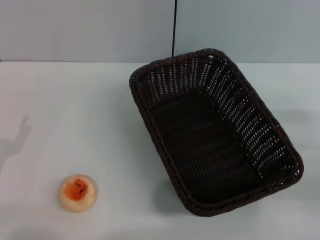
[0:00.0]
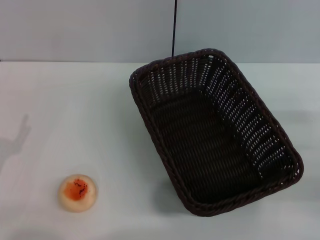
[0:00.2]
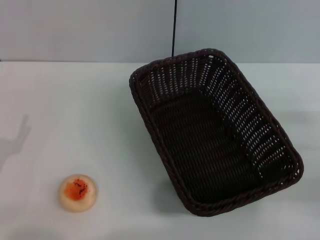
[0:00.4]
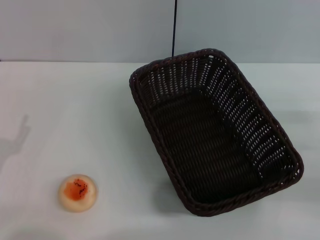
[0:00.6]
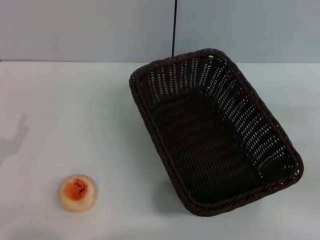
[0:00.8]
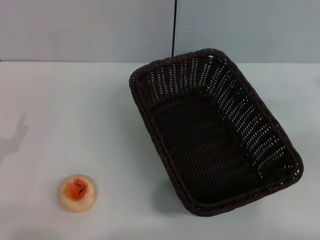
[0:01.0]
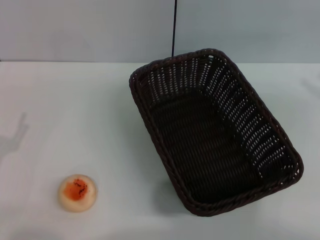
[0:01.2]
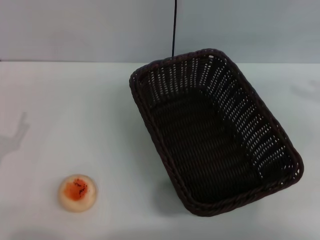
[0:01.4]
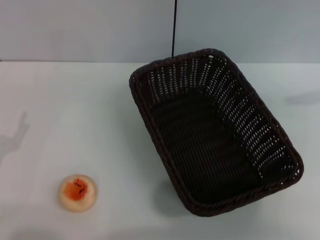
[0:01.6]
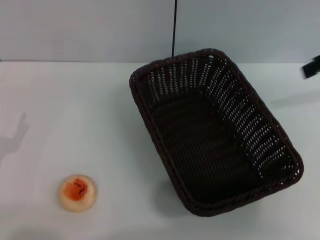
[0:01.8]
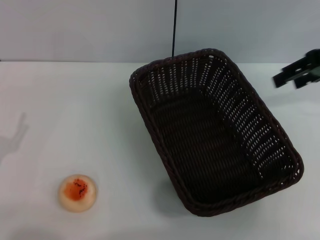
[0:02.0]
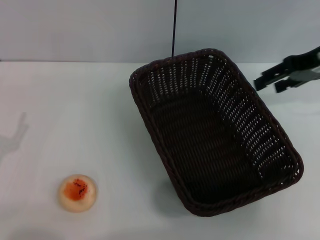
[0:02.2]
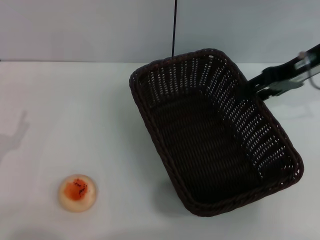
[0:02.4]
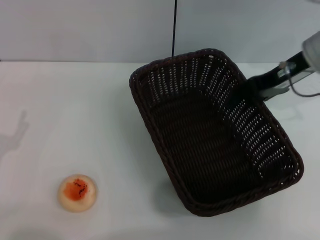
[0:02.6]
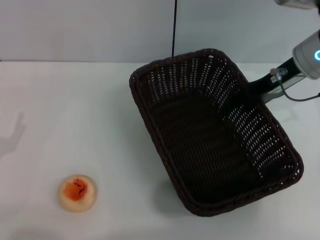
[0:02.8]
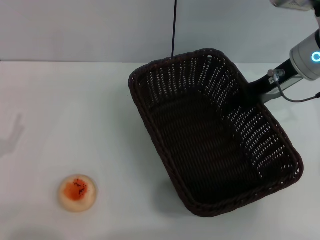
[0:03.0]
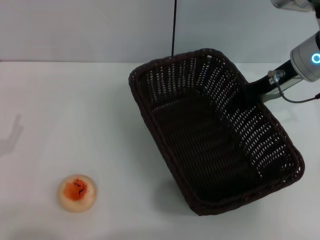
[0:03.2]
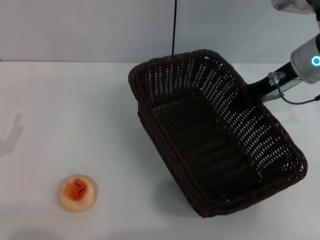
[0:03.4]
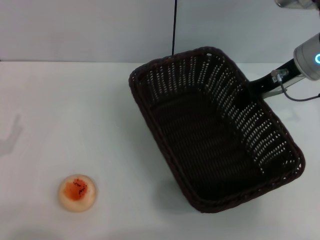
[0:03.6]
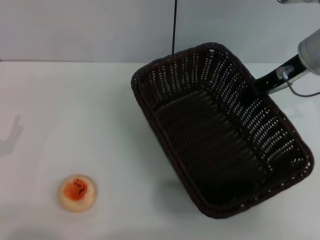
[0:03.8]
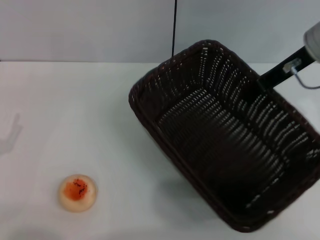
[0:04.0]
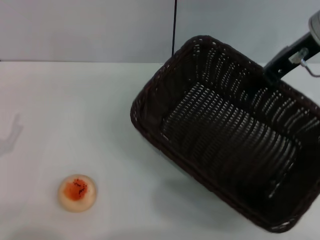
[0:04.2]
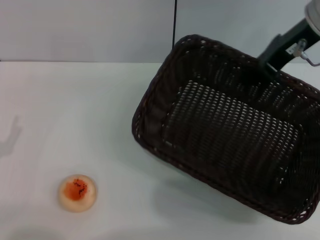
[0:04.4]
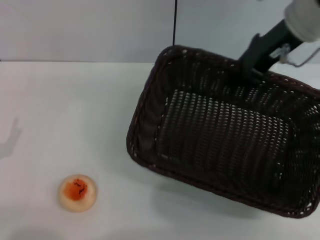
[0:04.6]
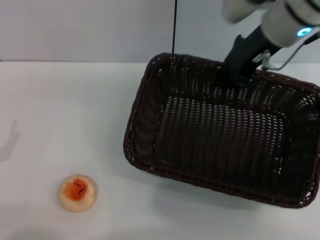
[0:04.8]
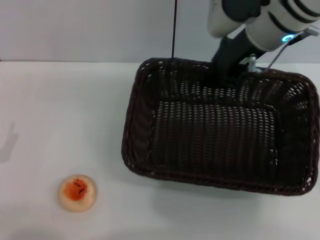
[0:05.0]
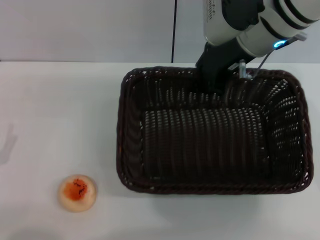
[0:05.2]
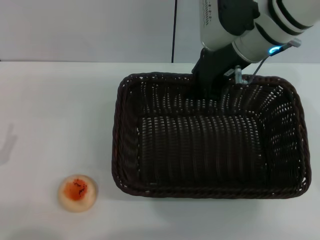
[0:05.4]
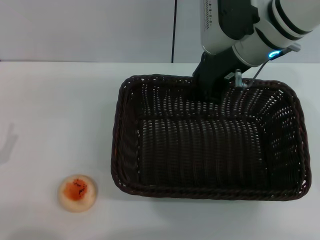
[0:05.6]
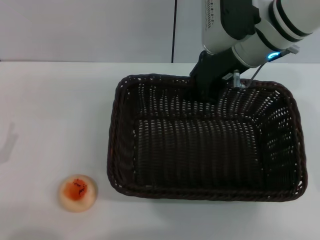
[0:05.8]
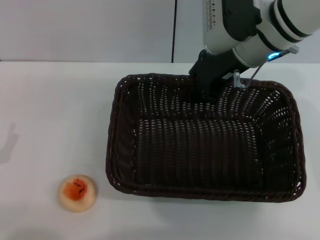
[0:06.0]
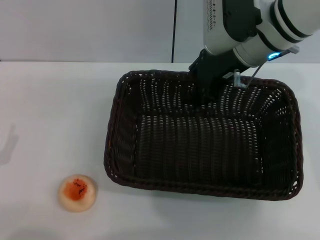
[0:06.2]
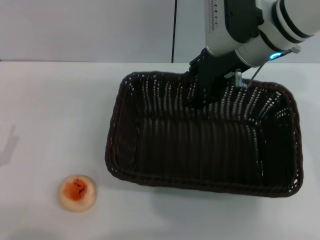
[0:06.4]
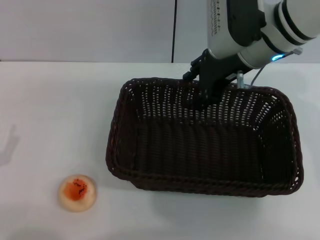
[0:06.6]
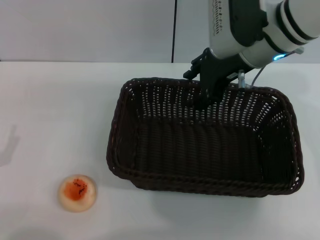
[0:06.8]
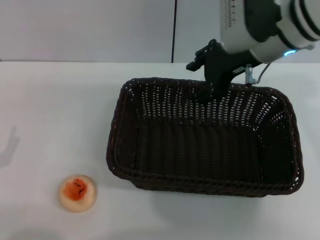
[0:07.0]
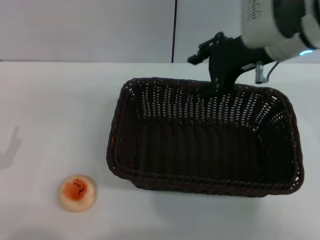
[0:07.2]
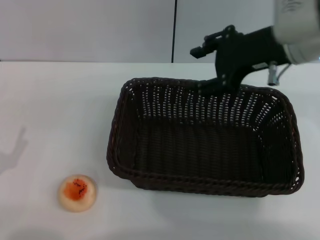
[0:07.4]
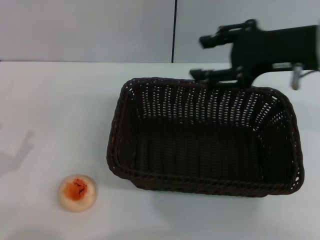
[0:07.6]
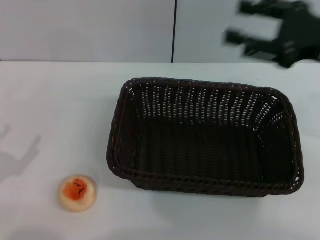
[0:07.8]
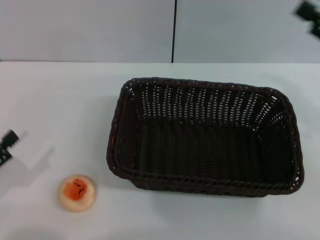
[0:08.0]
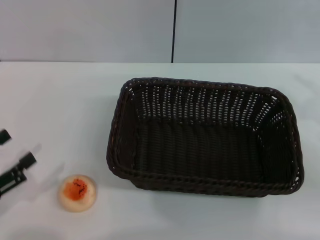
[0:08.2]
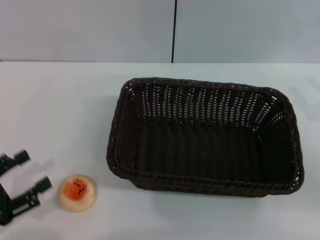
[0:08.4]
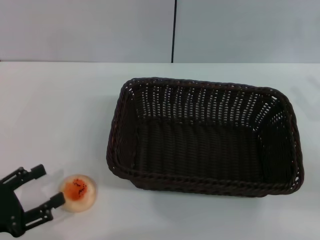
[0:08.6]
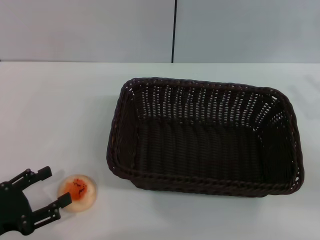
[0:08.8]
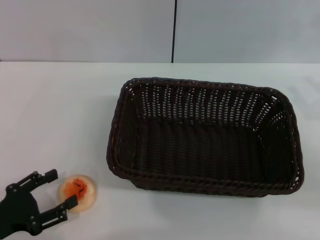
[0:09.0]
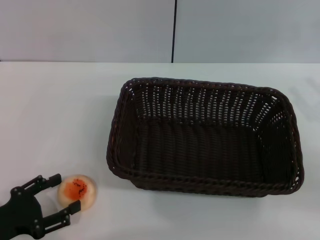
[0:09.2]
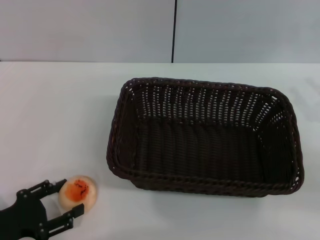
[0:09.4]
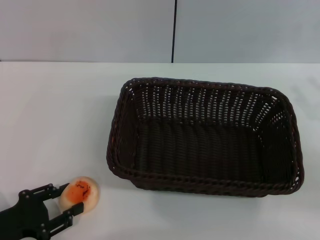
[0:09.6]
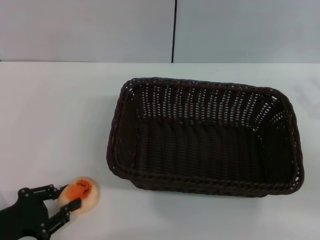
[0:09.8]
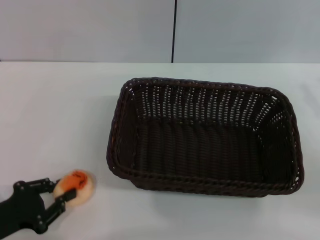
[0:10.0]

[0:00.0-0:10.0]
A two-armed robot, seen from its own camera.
Step, 0.0 to 7.0 s: Move the basket to the center of view with the right gripper.
0.0 to 1.4 s: The right gripper moves upward, roughly 20 cm.
1.4 to 2.8 s: The right gripper heads to the left, downward and forward, covering about 20 cm.
2.8 to 4.2 s: The right gripper moves upward, some 5 cm, and closes up.
4.2 to 5.8 s: The right gripper travels to the left by roughly 10 cm.
5.8 to 7.2 s: The right gripper moves roughly 5 cm, and opens its fingers.
7.2 to 8.6 s: The right gripper goes about 25 cm to the right, downward and backward.
8.6 to 10.0 s: The left gripper closes up.

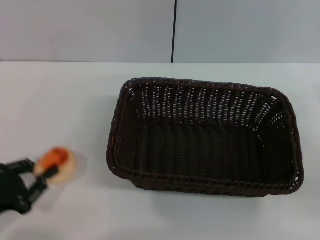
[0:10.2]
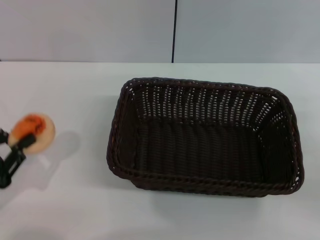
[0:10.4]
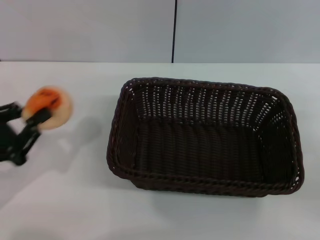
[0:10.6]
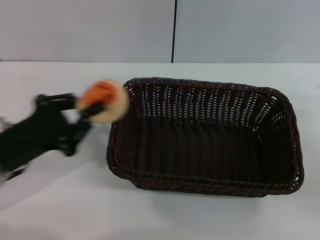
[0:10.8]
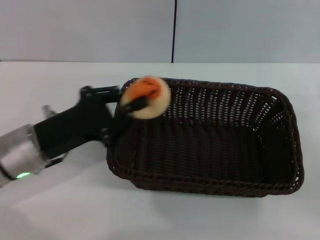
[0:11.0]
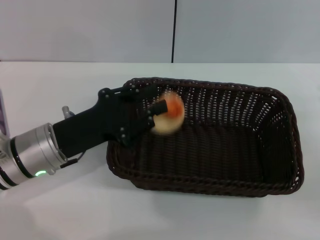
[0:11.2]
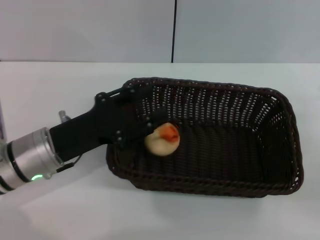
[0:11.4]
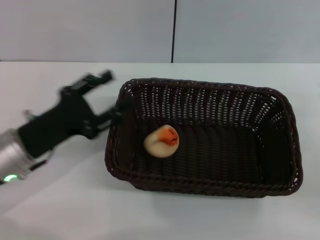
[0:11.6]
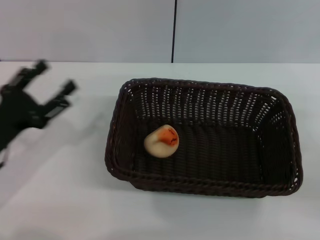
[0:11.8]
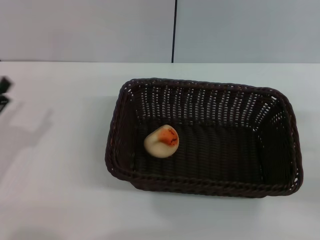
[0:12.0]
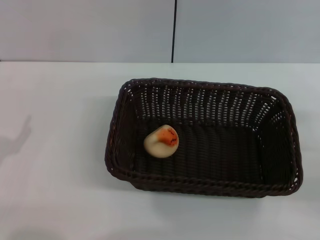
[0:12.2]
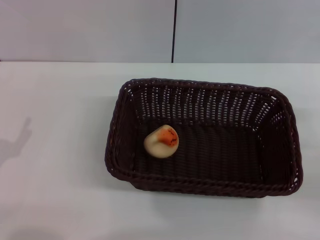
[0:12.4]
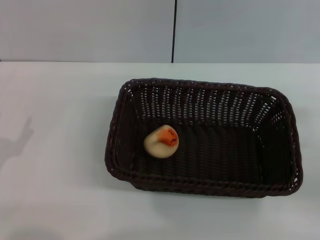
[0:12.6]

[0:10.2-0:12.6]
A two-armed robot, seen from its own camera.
Step, 10.6 to 11.4 s: Place the egg yolk pastry into the basket with the left gripper.
10.2 to 11.4 s: The left gripper goes some 15 cm to the right and forward.
11.4 to 12.6 s: The left gripper goes about 15 cm to the left and backward, and opens up.

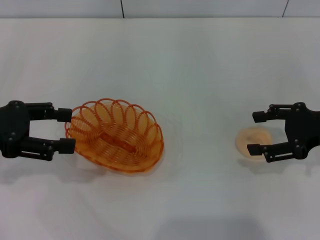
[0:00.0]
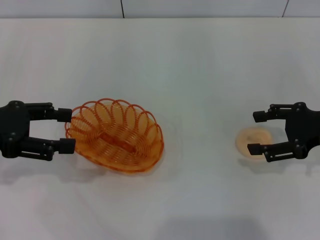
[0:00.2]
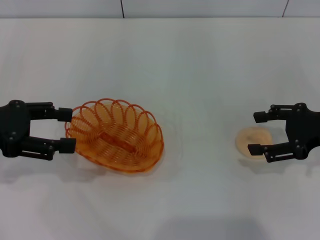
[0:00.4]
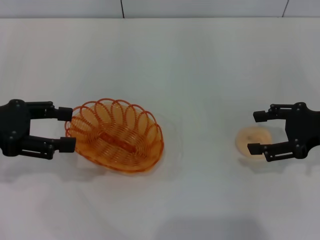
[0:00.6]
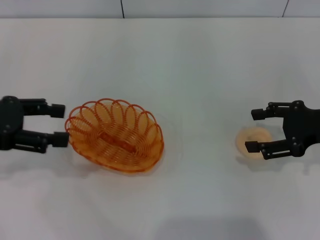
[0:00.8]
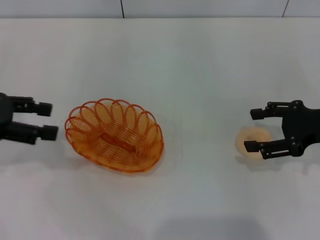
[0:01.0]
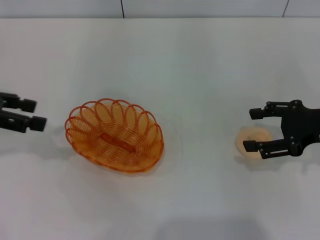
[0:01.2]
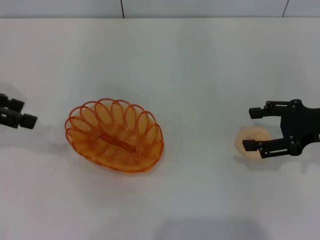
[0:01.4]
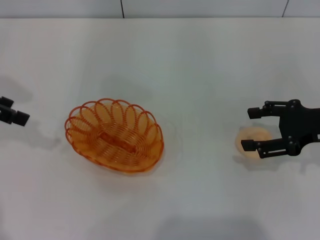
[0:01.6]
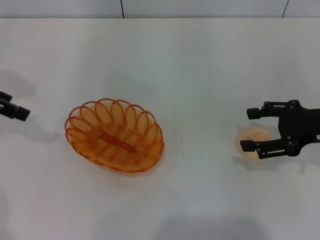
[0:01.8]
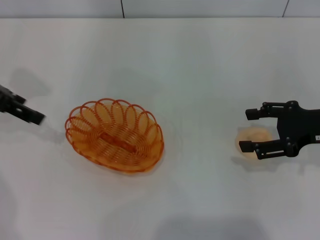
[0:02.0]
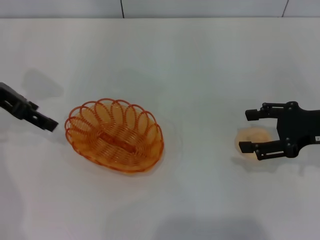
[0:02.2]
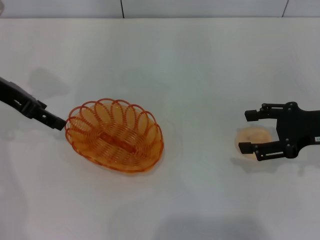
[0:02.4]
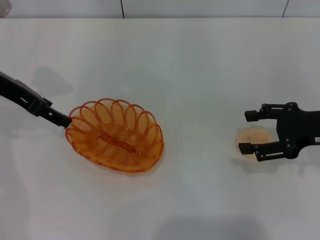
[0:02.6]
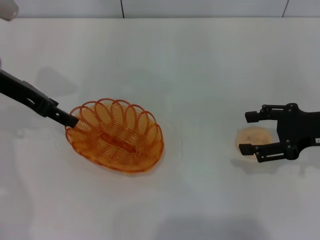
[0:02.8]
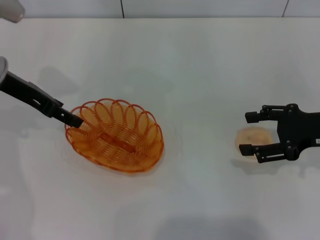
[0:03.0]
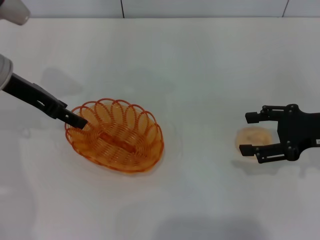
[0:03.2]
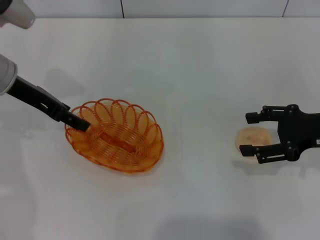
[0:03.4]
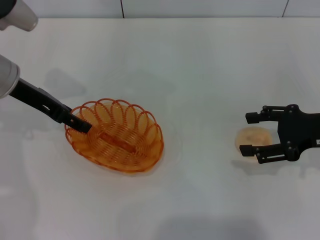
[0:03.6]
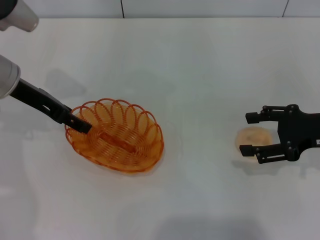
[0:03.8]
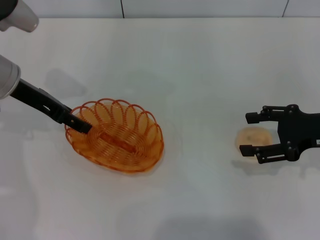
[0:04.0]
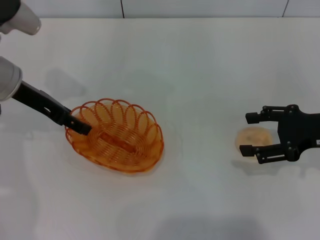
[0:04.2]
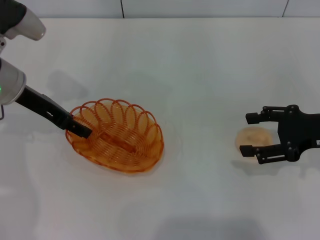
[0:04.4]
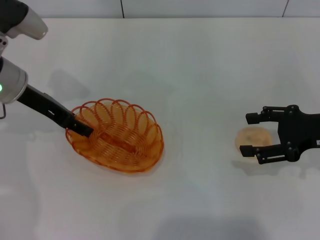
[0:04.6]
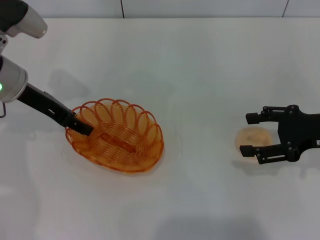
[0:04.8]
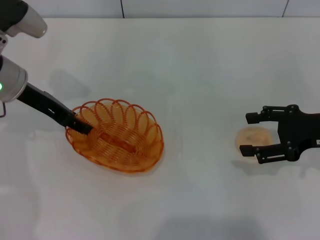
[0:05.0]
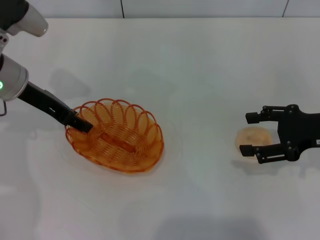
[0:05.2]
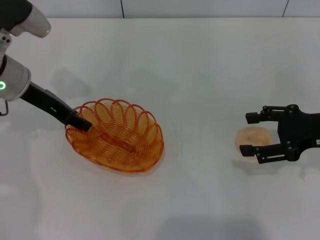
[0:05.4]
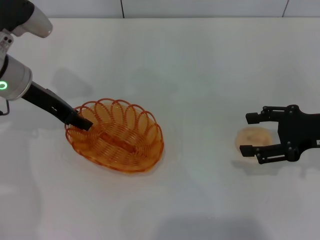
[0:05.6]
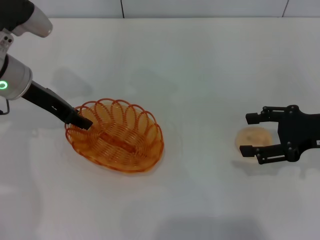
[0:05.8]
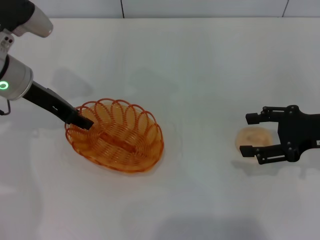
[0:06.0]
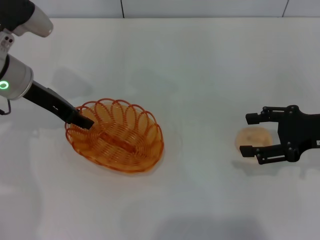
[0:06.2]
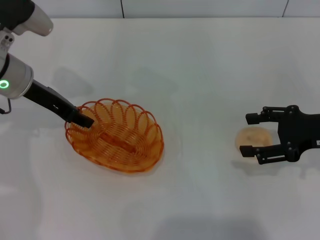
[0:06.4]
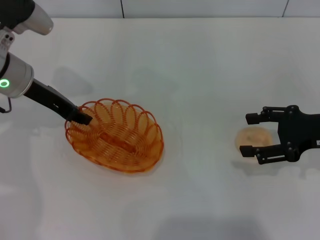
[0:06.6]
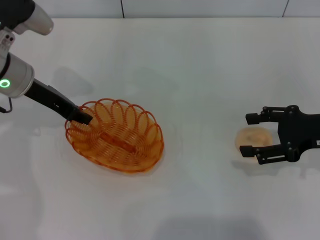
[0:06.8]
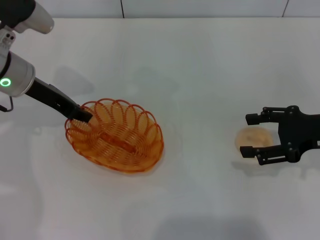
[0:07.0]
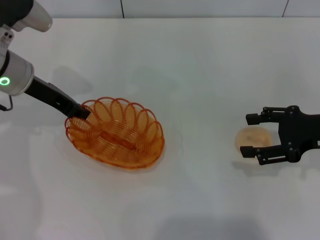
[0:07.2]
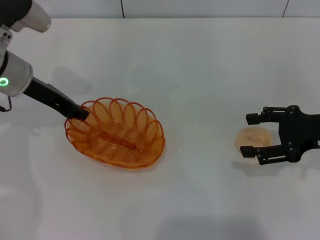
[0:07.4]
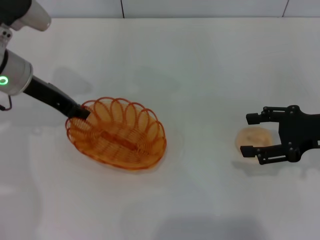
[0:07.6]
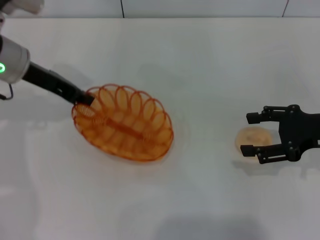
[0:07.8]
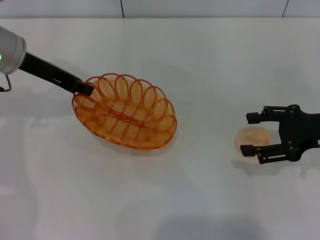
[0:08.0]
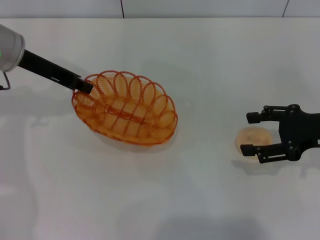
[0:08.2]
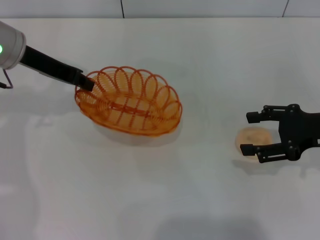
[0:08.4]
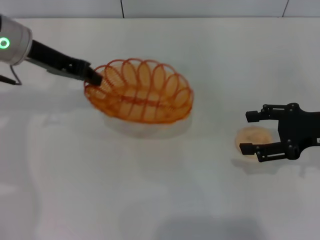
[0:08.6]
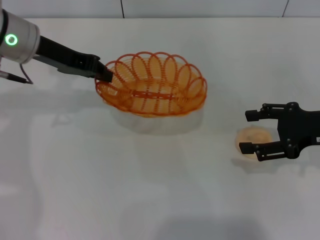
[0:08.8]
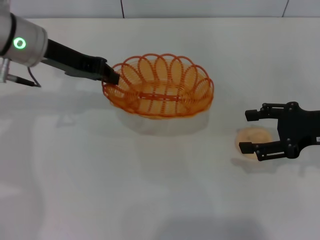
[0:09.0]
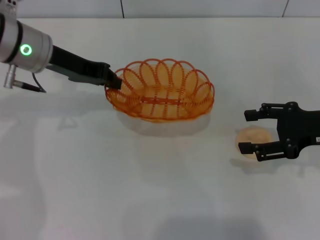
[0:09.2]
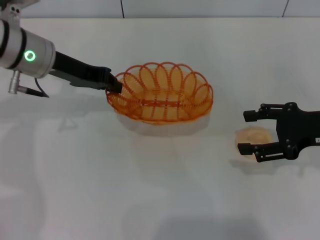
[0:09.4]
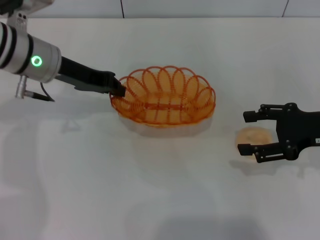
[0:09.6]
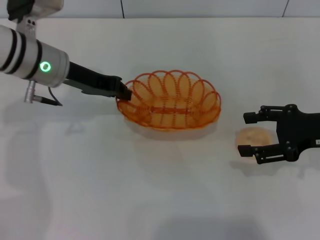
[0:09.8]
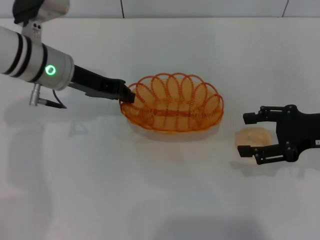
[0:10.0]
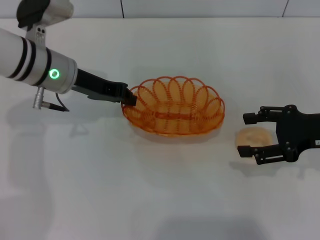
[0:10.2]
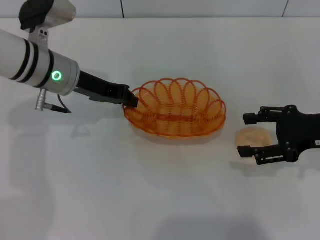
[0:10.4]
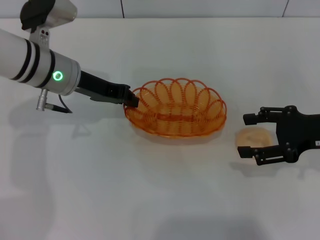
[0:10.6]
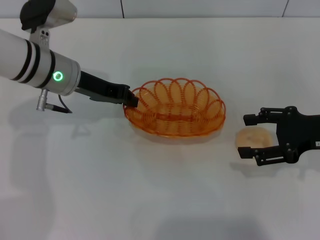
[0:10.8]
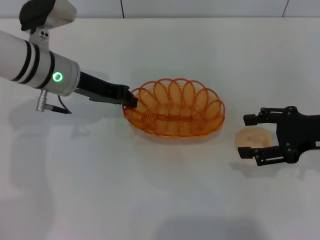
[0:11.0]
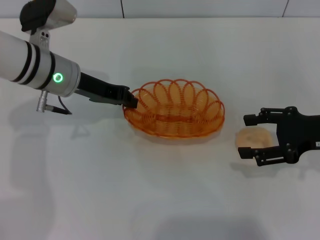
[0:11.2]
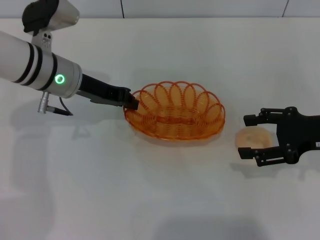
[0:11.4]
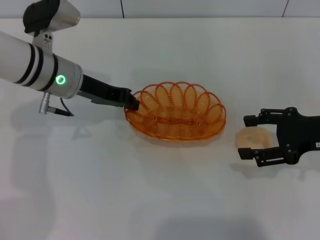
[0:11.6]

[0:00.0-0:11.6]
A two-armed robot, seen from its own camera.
Step, 0.0 to 8.0 s: Pick up the basket with the left gripper.
0.0 to 1.4 s: The left gripper goes about 5 cm forward.
1.4 to 2.8 s: The left gripper goes about 10 cm to the right and forward.
2.8 to 4.4 s: The grippers stay close to where they were, moving slightly.
4.4 to 5.8 s: The left gripper closes its fingers.
5.8 to 7.2 s: The two grippers keep their place.
8.8 to 10.2 s: The left gripper travels downward by some 5 cm.
10.2 to 11.6 s: Both grippers stay about where they are.
